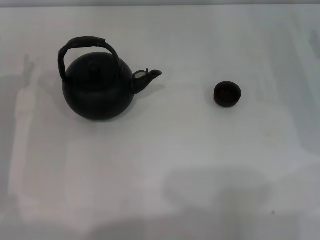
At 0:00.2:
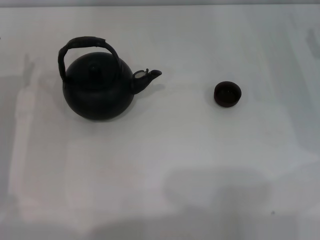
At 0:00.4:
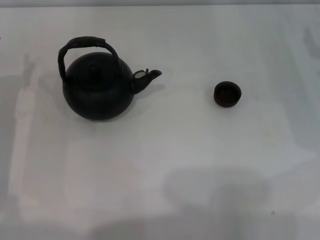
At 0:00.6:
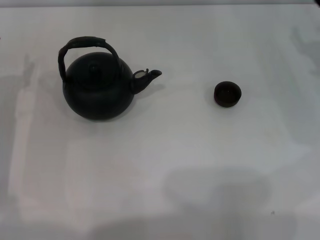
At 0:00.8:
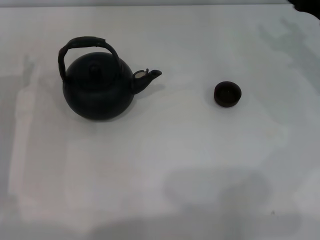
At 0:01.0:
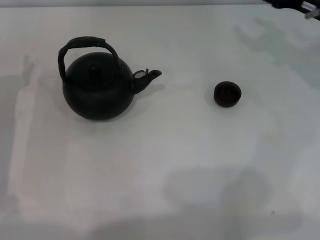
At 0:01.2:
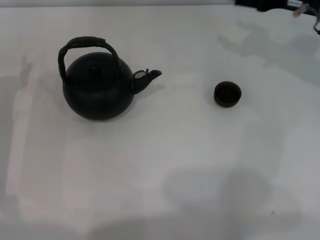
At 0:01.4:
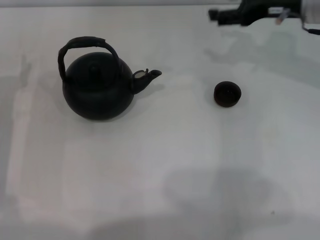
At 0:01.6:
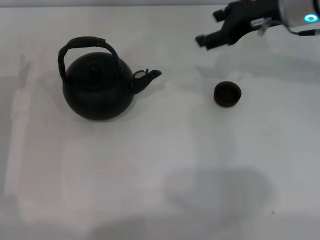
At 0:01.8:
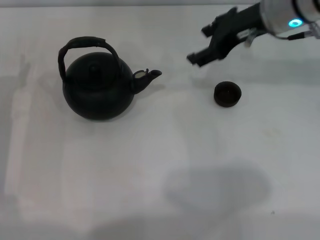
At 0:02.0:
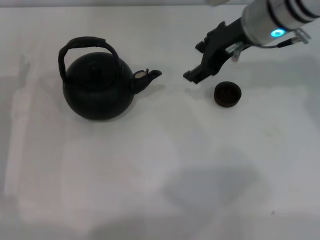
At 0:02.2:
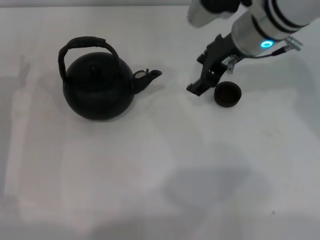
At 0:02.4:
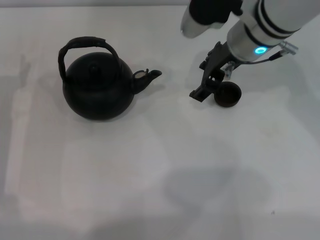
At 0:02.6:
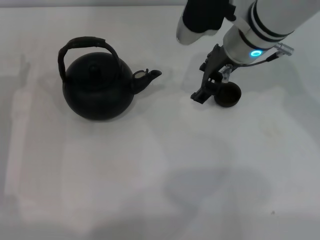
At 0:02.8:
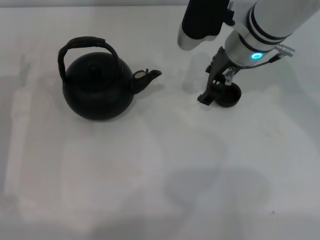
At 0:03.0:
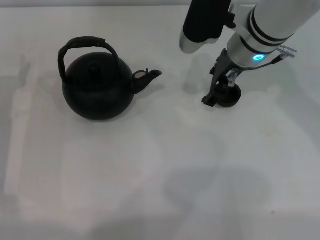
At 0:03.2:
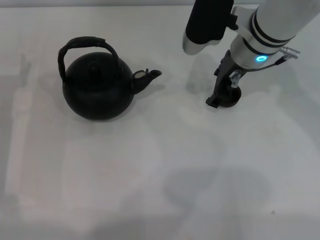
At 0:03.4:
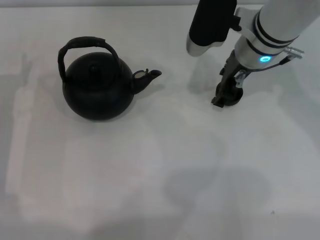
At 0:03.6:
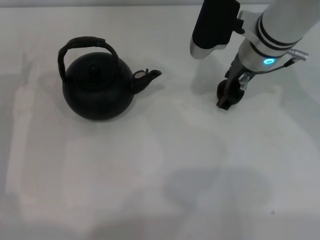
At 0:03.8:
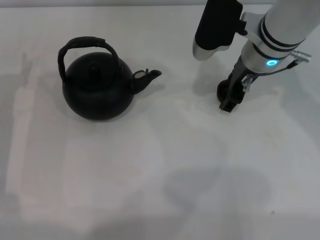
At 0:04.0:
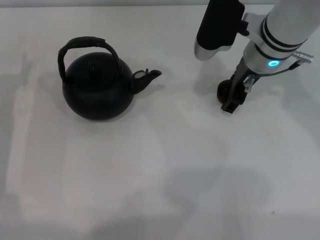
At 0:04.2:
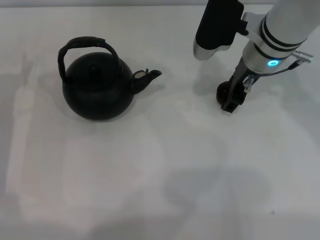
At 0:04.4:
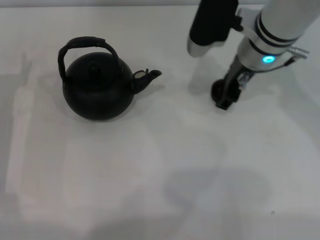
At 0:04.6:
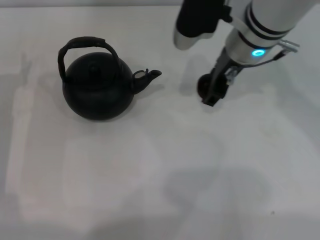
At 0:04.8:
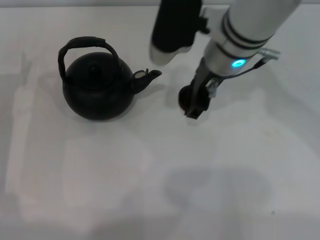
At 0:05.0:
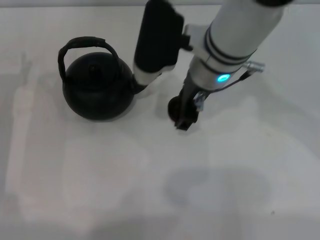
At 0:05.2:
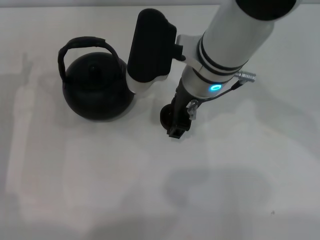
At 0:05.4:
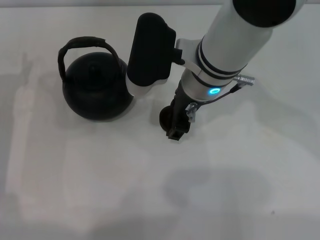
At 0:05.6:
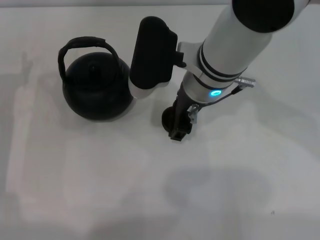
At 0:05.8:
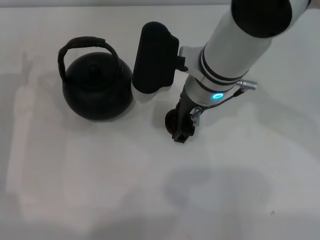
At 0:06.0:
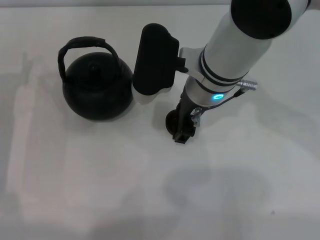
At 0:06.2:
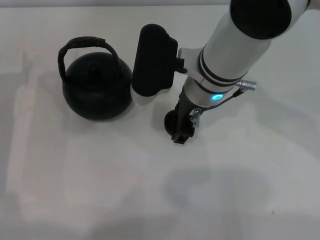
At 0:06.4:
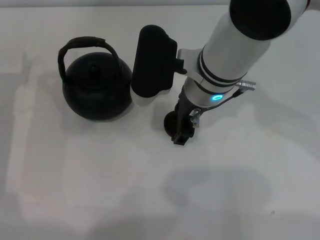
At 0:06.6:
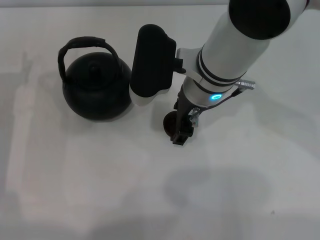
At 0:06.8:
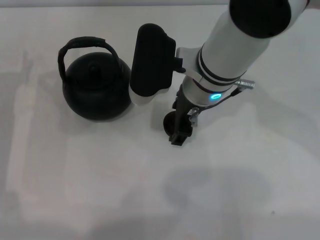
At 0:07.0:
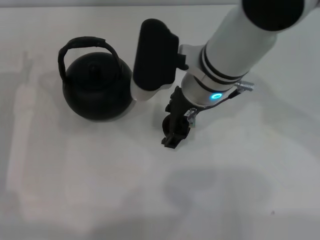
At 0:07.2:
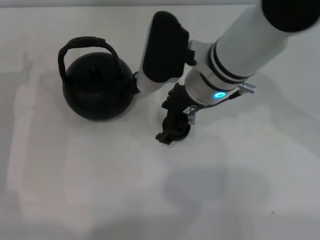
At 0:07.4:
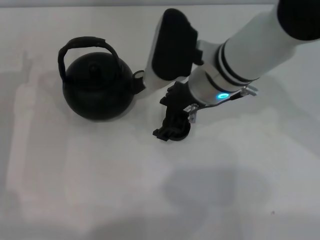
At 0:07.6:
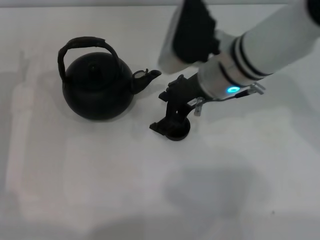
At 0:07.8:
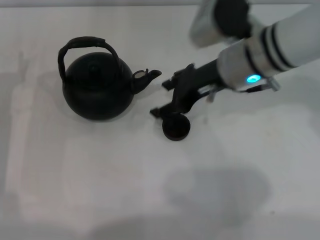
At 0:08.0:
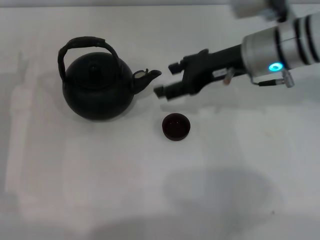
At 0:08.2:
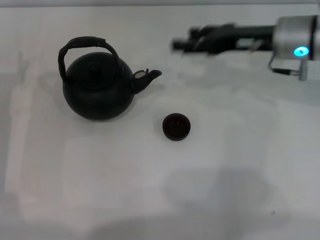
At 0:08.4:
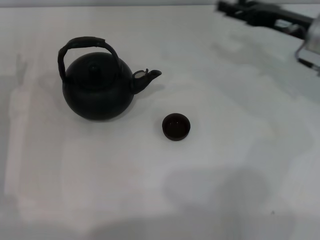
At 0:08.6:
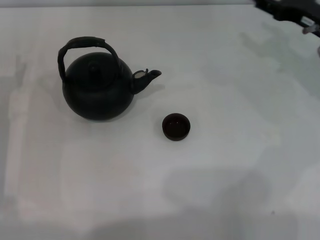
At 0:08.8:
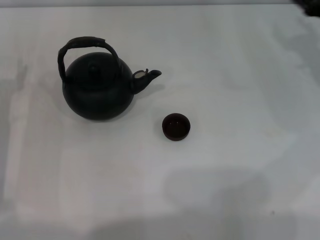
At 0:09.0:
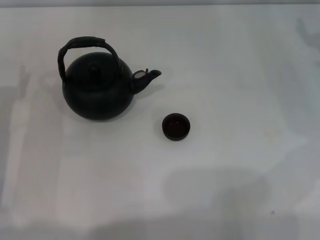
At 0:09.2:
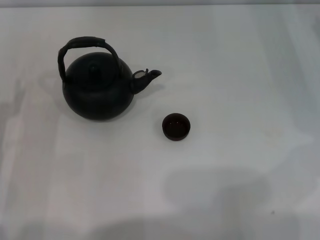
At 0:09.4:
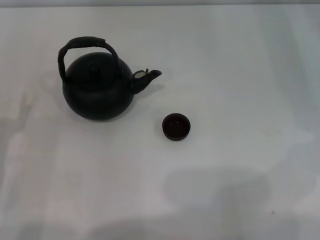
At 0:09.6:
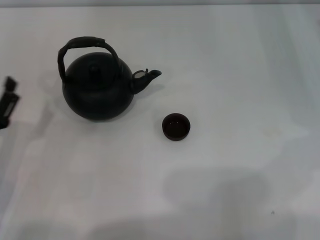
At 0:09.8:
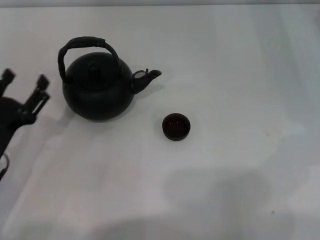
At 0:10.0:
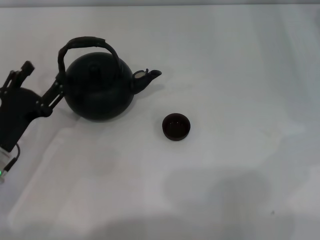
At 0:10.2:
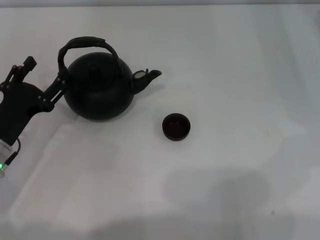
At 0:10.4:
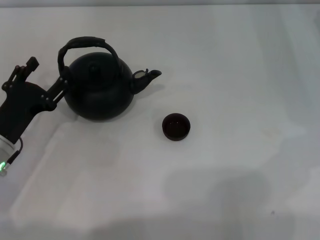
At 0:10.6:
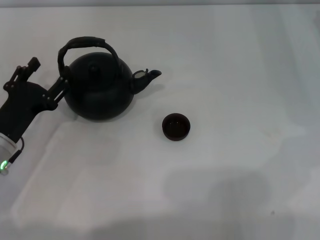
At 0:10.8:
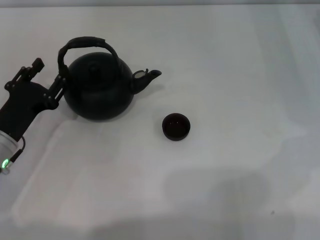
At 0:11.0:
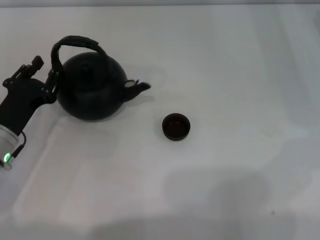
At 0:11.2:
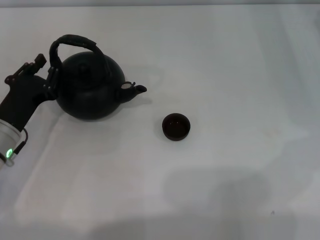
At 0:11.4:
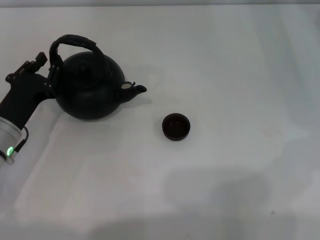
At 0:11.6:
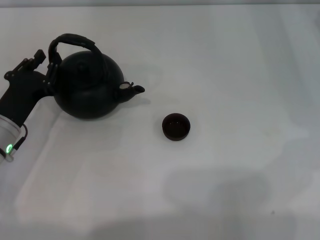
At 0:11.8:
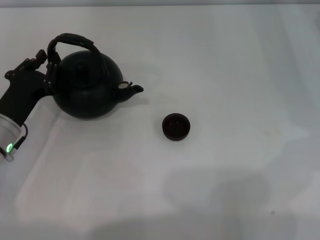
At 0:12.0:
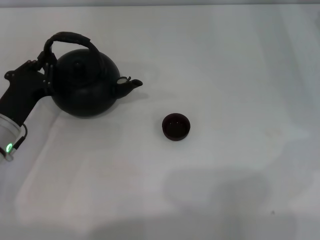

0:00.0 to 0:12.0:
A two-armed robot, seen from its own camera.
Task of the whole recording: Grasp the handle of the teapot with one hand and pour tea into the teacup.
Step, 0:00.0 to 0:04.6: Pick up the teacup with the right gripper.
Step, 0:04.8 to 0:07.2: Place the teacup in the center of view with the right gripper.
0:00.0 to 0:01.6: The right gripper heads to the left, upward and forward, covering approximately 20 cm.
0:01.6 to 0:03.0: The right gripper is displaced to the left by roughly 10 cm.
0:03.0 to 0:04.4: The grippers make only small movements.
0:04.4 to 0:06.0: The right gripper is displaced to the left by approximately 5 cm.
0:07.6 to 0:09.0: The right gripper travels to the right by about 25 cm.
0:10.4 to 0:12.0: The left gripper closes up.

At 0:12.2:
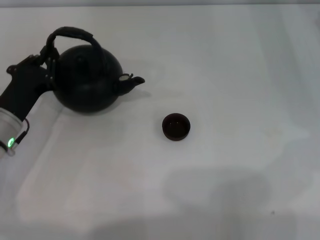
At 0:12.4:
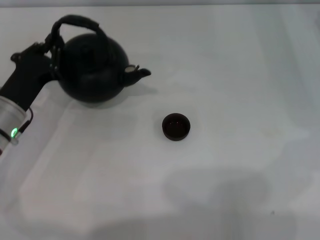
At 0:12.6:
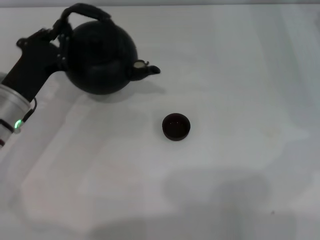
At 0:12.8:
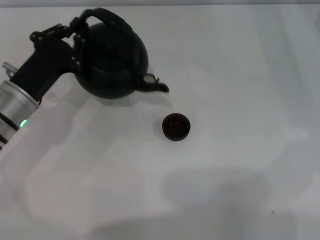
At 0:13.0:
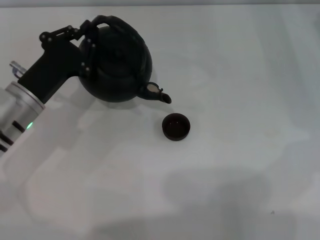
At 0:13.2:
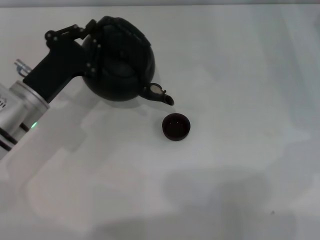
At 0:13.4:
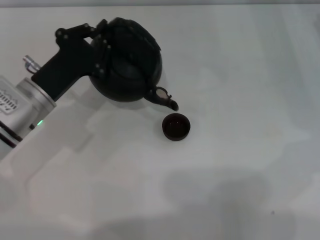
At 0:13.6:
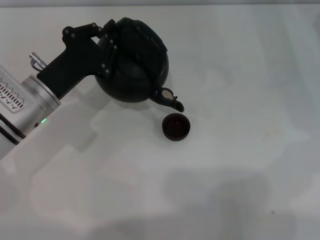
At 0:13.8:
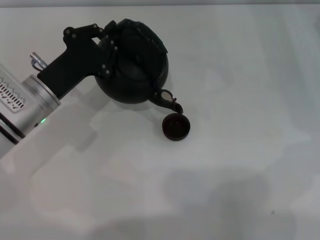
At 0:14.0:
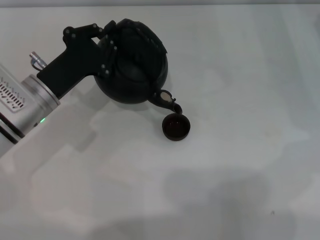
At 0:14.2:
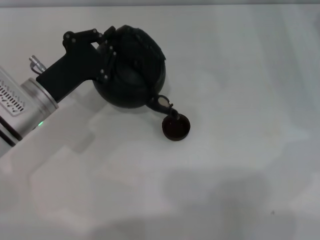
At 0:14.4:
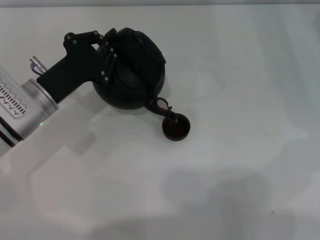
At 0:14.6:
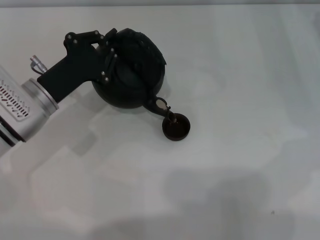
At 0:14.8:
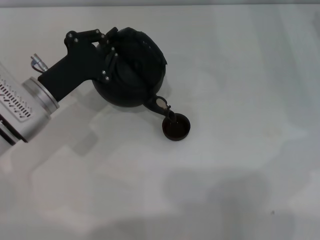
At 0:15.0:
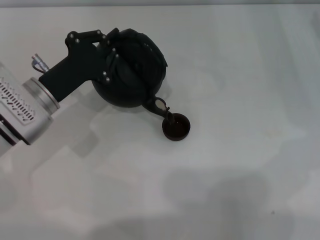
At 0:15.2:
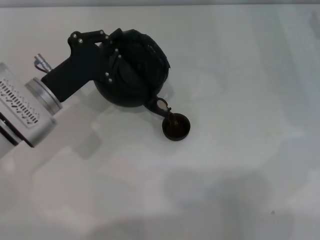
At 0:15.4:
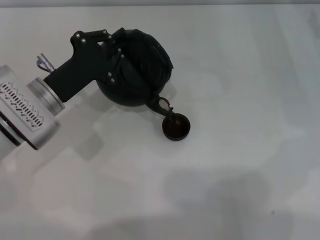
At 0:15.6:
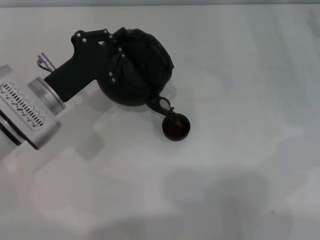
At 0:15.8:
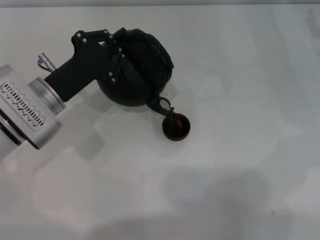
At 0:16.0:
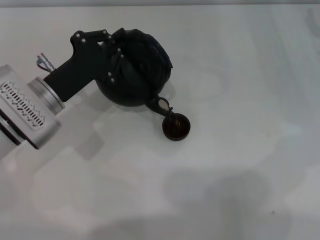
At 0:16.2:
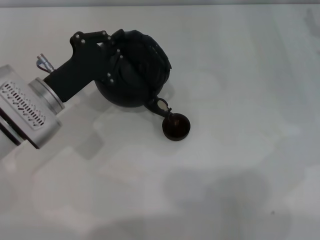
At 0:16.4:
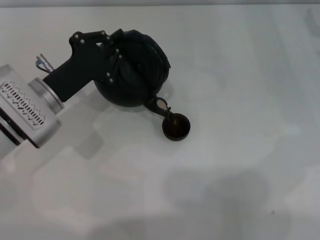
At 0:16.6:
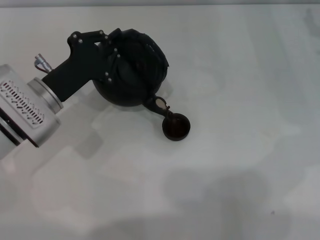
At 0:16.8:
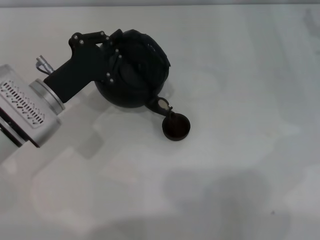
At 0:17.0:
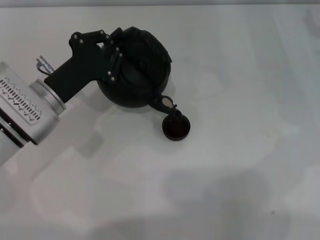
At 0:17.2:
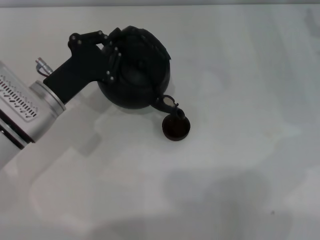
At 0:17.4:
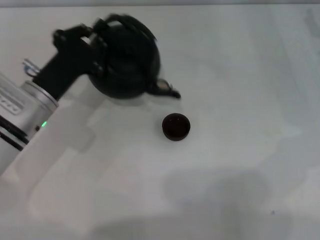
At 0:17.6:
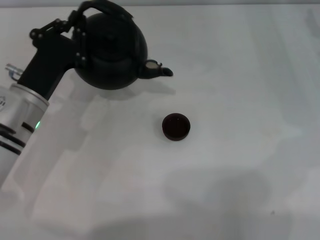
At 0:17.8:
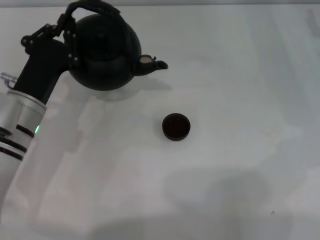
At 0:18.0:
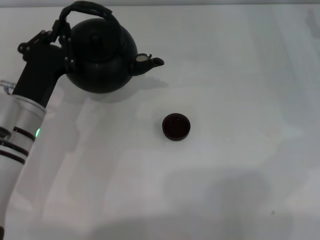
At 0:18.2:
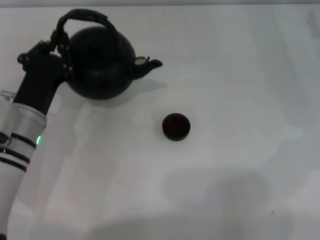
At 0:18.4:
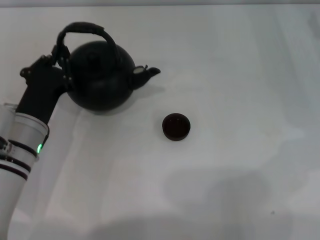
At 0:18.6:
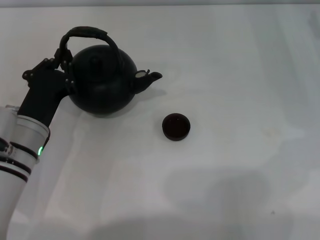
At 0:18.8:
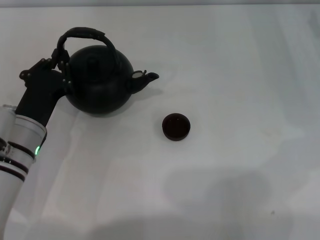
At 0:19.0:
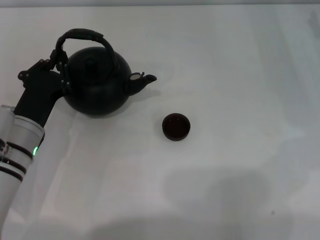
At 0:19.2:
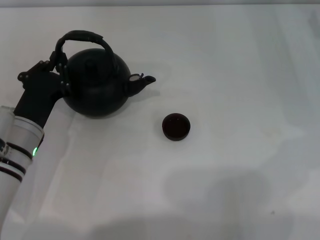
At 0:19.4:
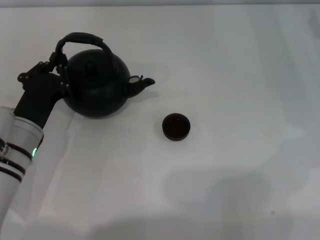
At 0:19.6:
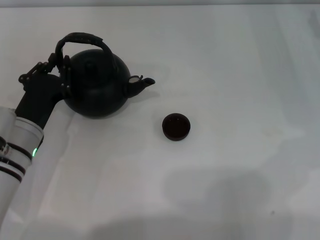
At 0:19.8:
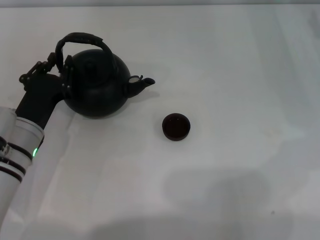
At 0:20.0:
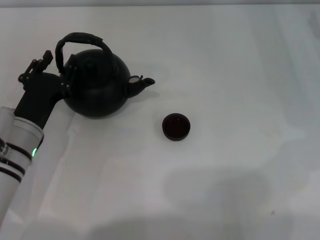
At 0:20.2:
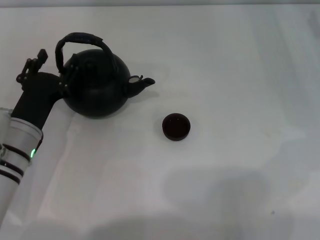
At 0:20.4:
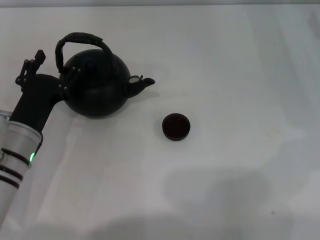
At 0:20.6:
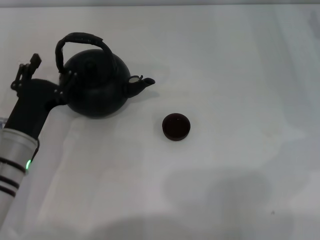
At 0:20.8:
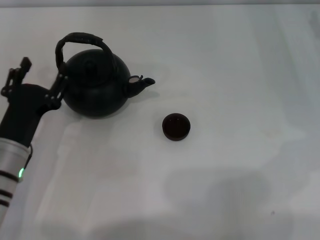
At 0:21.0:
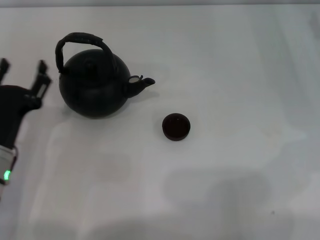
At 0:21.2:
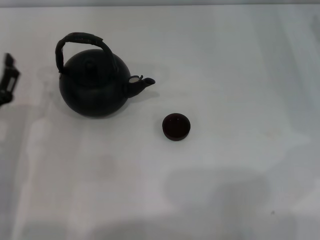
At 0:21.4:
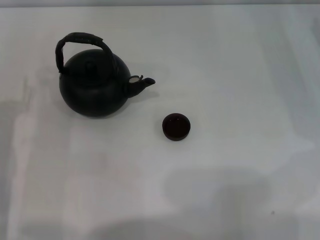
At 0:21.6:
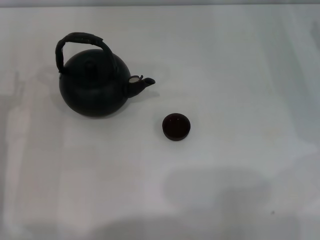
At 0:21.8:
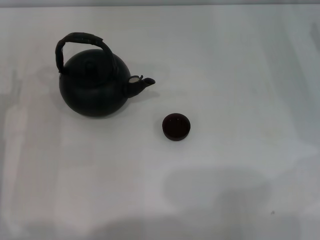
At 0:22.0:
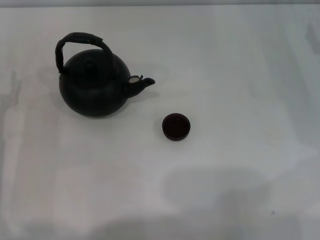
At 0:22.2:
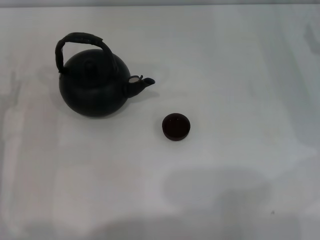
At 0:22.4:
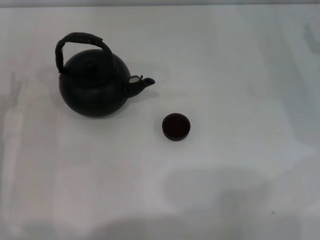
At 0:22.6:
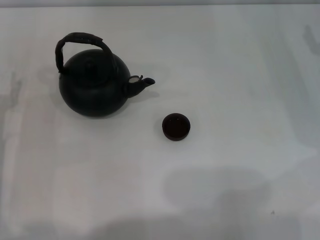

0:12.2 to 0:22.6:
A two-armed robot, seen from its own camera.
Task of the whole recording: Grasp the handle of the teapot with one hand and pour tea into the teacup.
Step, 0:12.8 to 0:17.4: Pour tea into the teacup with the left gripper.
Step, 0:17.6 to 0:20.6: Put down the teapot with the left gripper.
0:12.2 to 0:13.6: The left gripper moves about 5 cm.
0:13.6 to 0:15.2: The grippers stay close to where they were, moving slightly.
0:15.2 to 0:16.6: Both grippers stay about where they are.
0:18.2 to 0:19.6: The grippers stay close to where they were, moving slightly.
0:19.6 to 0:21.2: The left gripper travels to the left by roughly 5 cm, and opens up.
0:21.2 to 0:22.6: There are only small adjustments of the grippers.
